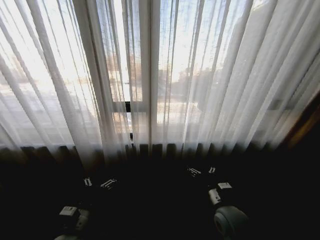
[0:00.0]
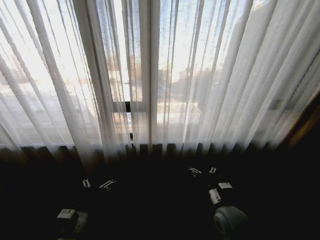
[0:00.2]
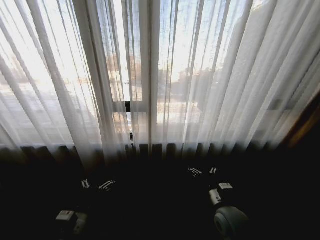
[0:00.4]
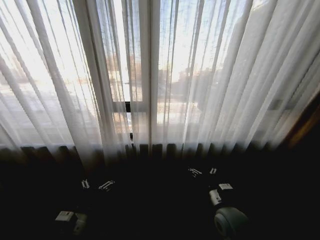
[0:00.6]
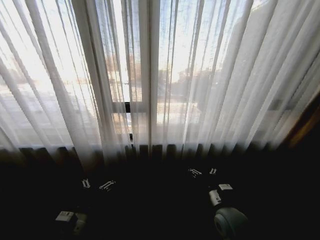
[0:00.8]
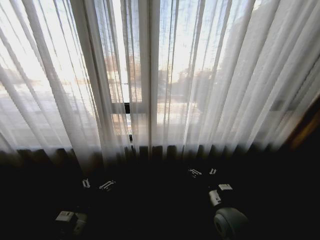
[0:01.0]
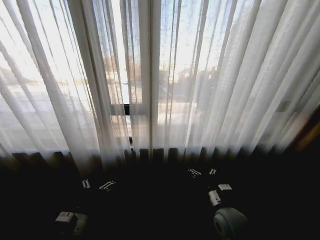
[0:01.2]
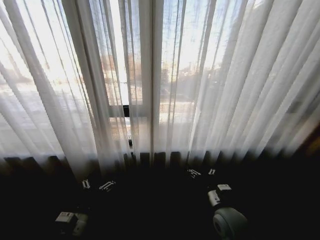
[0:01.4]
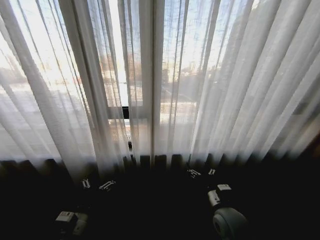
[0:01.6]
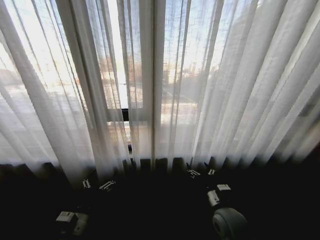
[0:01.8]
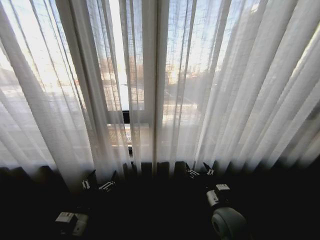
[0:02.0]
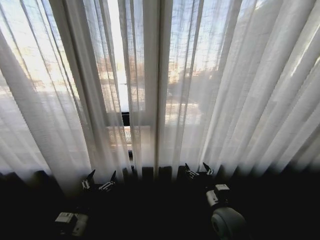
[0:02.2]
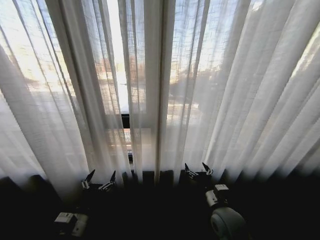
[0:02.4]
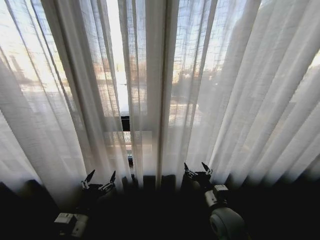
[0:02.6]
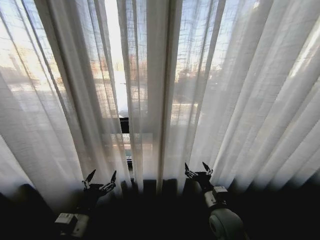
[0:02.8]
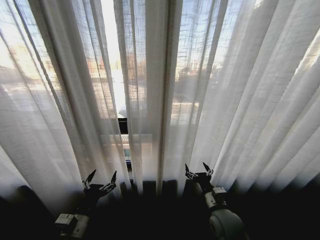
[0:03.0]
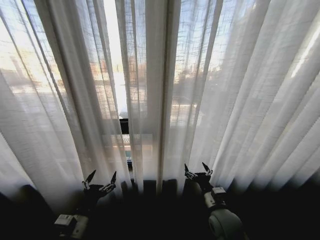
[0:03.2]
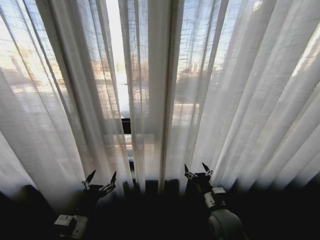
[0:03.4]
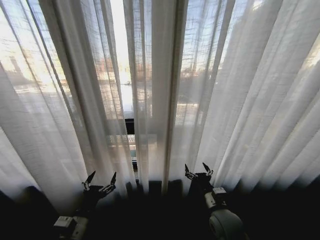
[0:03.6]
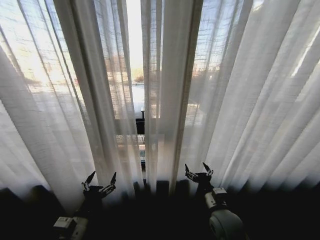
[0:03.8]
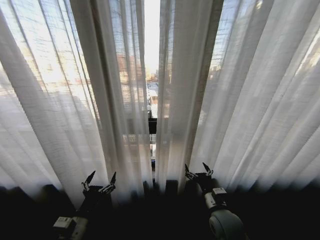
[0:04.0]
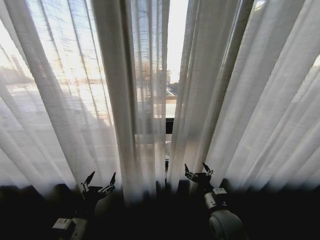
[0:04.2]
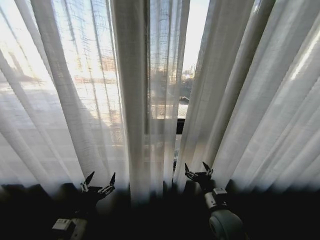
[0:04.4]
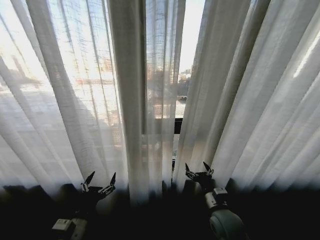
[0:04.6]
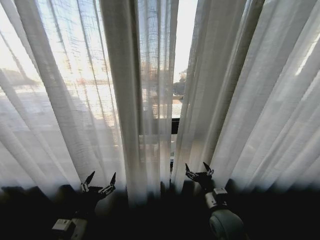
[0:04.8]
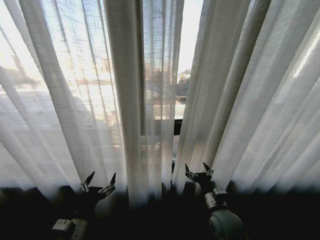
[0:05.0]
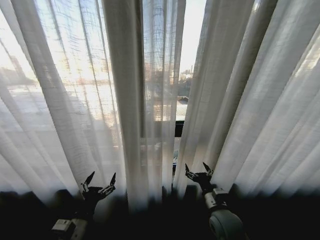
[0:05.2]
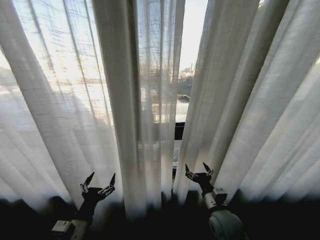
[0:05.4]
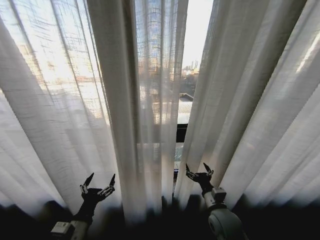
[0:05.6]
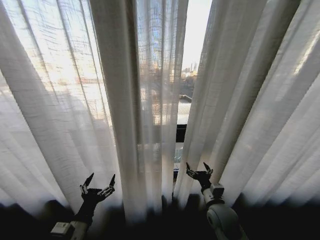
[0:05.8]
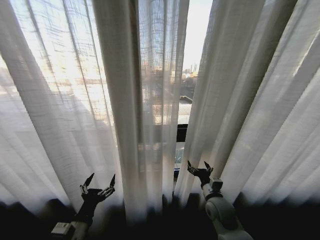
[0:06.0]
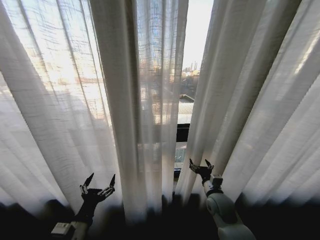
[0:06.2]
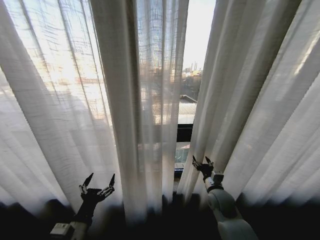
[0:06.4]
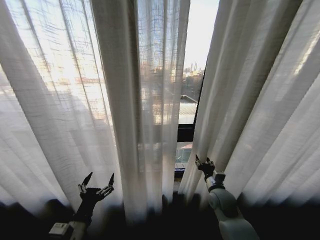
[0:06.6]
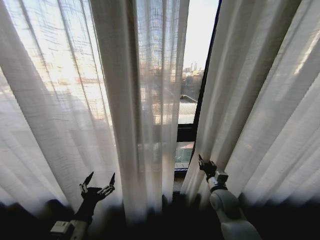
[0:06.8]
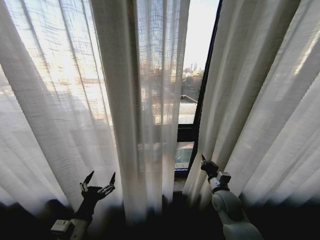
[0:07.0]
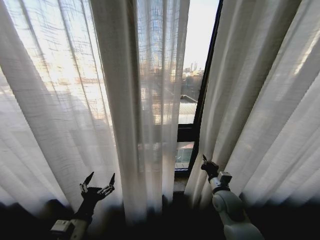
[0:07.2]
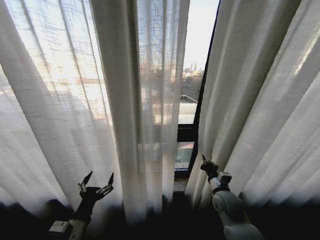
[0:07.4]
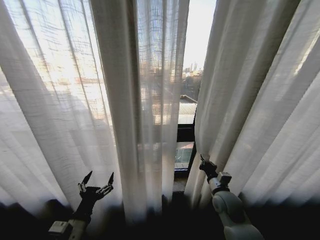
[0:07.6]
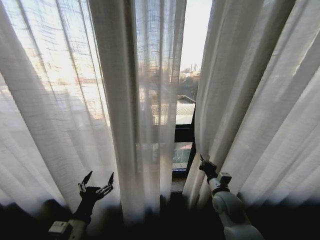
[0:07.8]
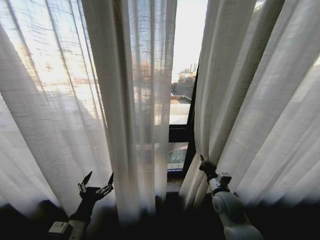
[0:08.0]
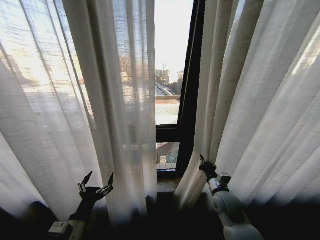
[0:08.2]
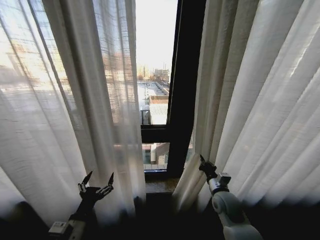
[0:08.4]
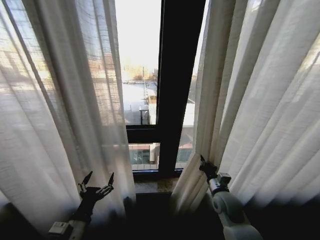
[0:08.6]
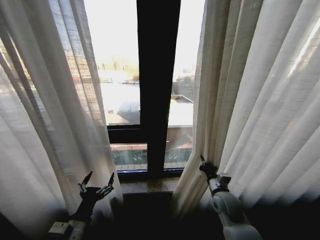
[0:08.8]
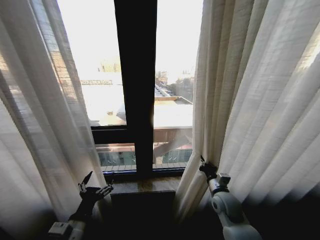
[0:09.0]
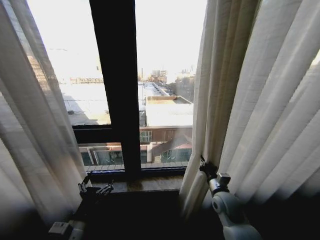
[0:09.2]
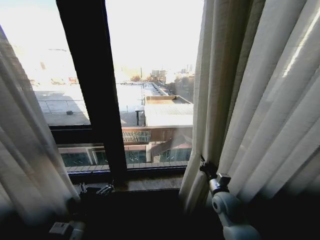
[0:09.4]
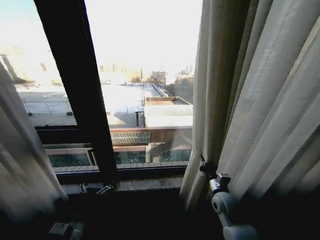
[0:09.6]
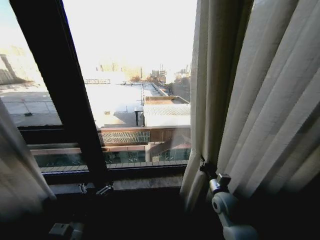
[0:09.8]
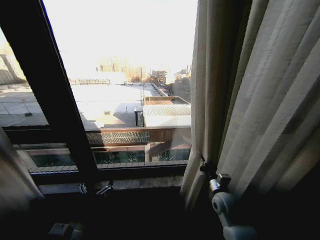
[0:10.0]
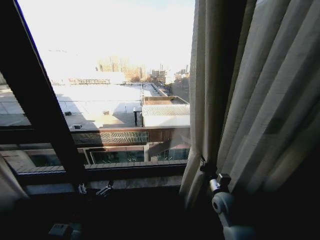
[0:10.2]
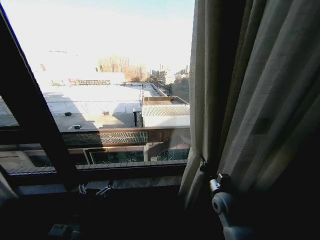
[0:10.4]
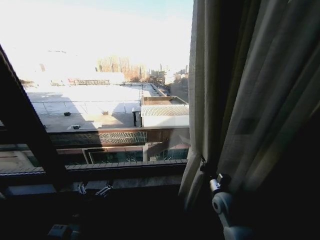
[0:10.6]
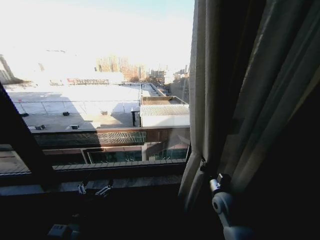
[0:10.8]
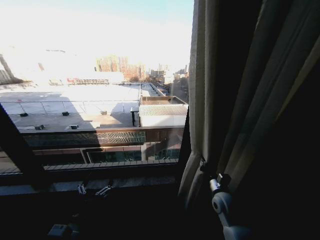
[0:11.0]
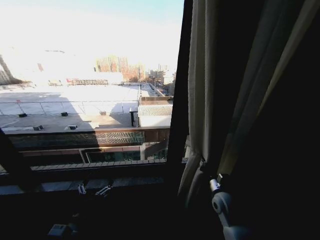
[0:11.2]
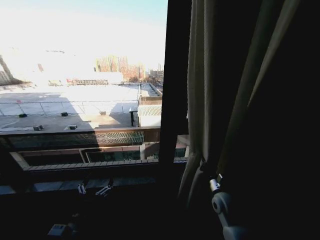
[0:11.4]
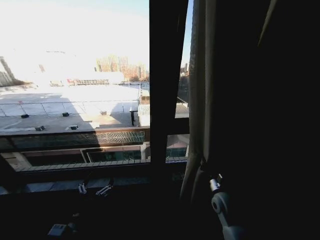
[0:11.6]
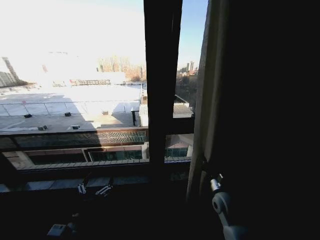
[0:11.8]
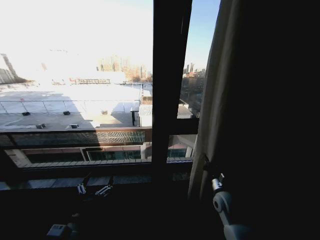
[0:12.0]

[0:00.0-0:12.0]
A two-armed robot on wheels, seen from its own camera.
Task of the whole recording: Open the curtains by pulling them apart, changing their state from closed to fully open.
0:04.4 to 0:06.0: The right gripper moves forward, some 5 cm.
0:06.0 to 0:07.6: The right gripper closes up.

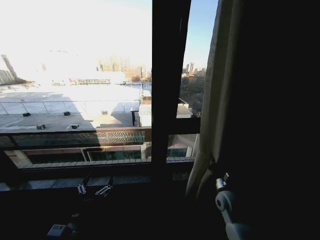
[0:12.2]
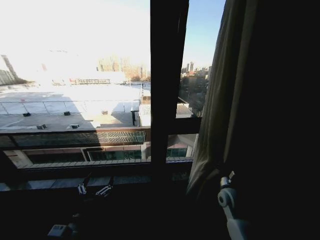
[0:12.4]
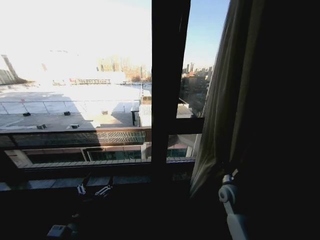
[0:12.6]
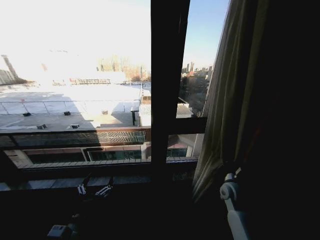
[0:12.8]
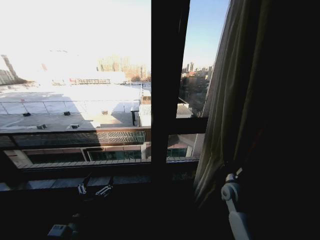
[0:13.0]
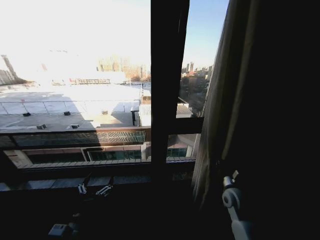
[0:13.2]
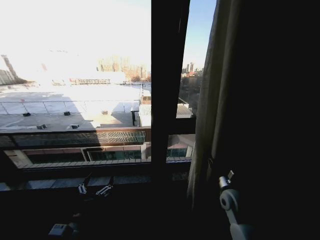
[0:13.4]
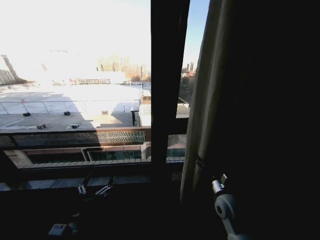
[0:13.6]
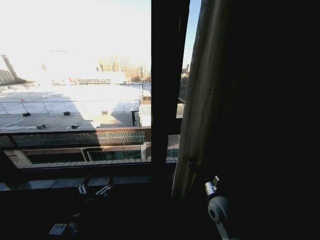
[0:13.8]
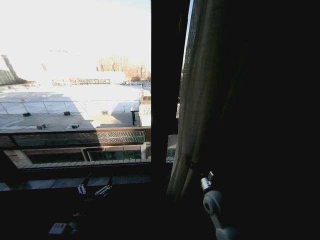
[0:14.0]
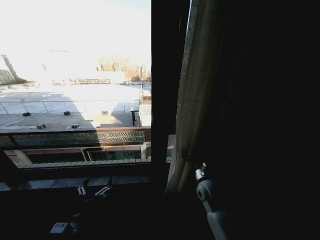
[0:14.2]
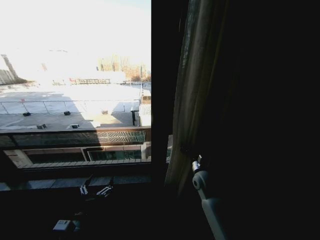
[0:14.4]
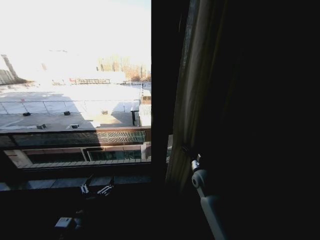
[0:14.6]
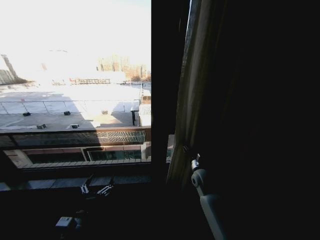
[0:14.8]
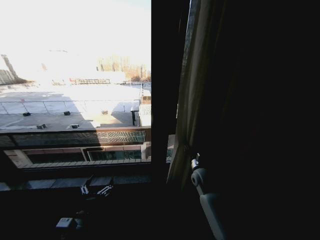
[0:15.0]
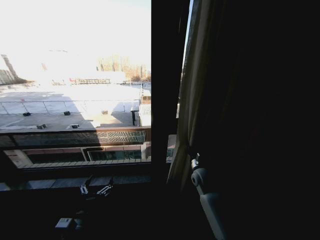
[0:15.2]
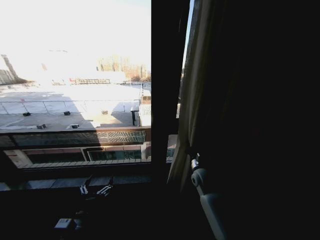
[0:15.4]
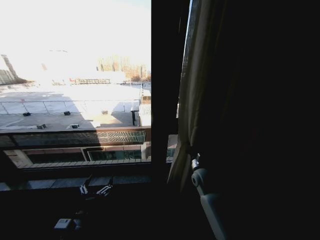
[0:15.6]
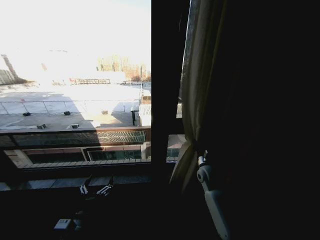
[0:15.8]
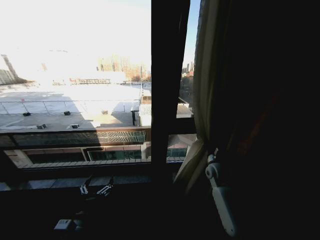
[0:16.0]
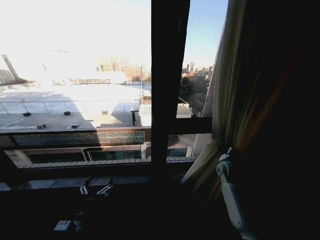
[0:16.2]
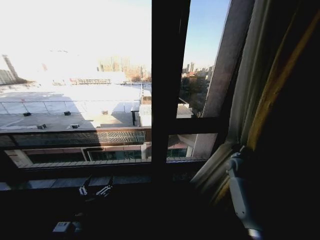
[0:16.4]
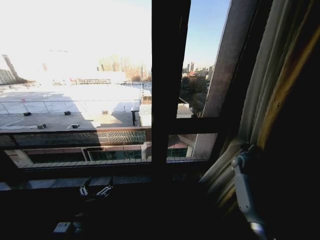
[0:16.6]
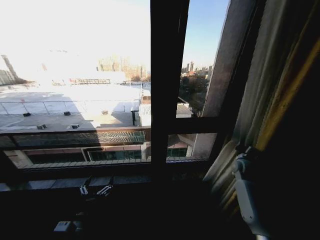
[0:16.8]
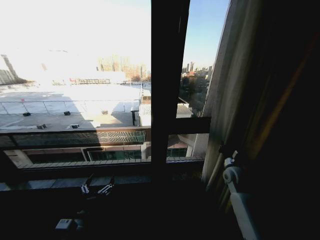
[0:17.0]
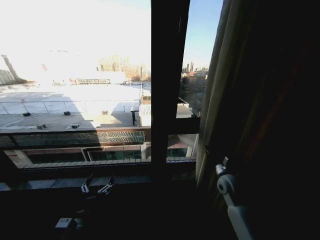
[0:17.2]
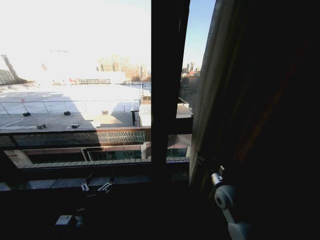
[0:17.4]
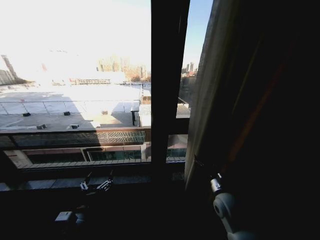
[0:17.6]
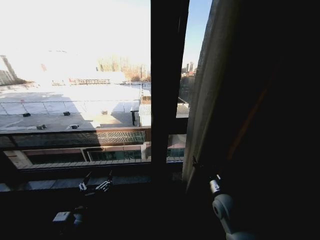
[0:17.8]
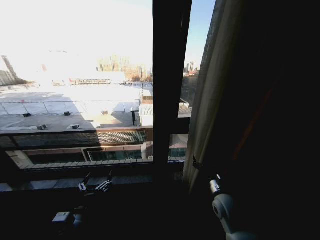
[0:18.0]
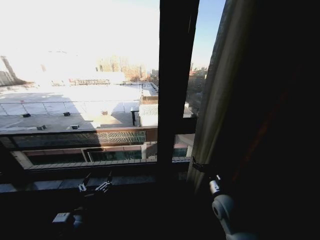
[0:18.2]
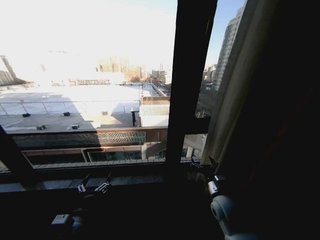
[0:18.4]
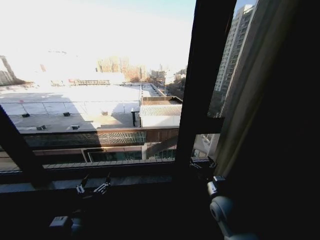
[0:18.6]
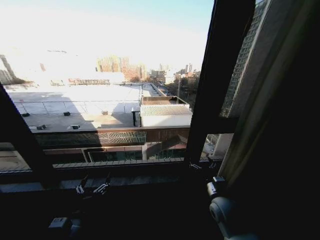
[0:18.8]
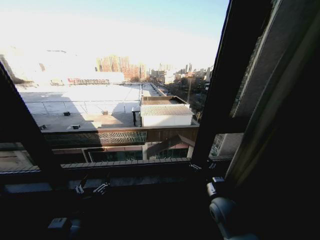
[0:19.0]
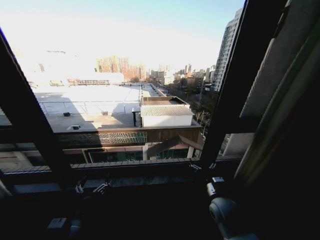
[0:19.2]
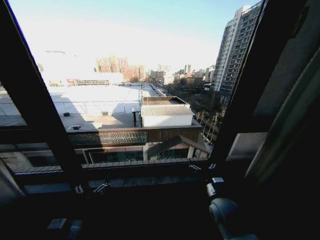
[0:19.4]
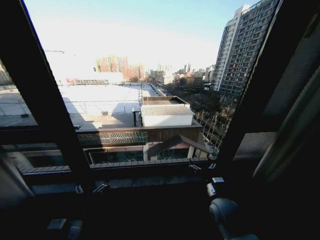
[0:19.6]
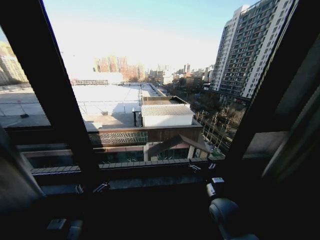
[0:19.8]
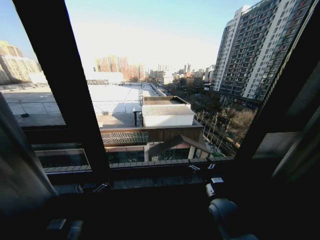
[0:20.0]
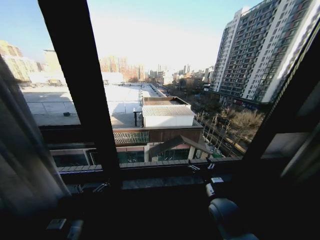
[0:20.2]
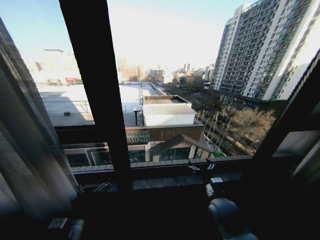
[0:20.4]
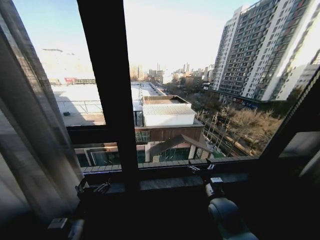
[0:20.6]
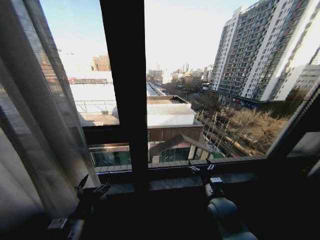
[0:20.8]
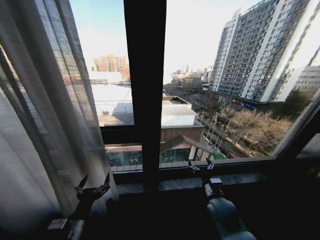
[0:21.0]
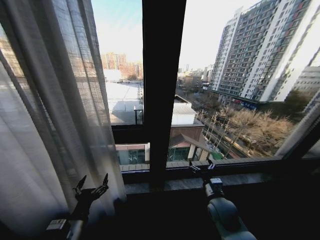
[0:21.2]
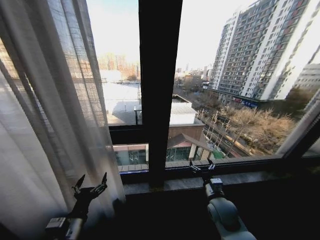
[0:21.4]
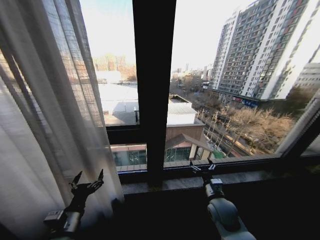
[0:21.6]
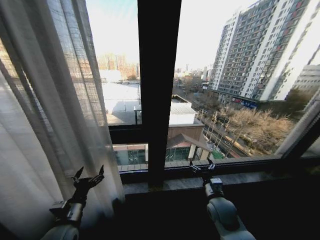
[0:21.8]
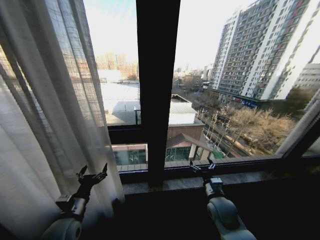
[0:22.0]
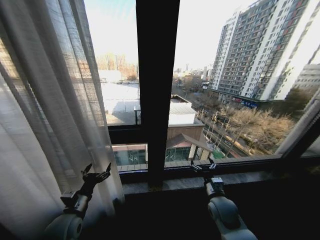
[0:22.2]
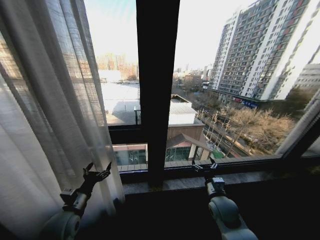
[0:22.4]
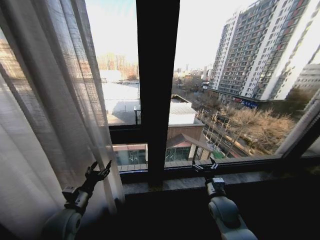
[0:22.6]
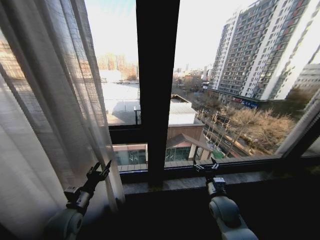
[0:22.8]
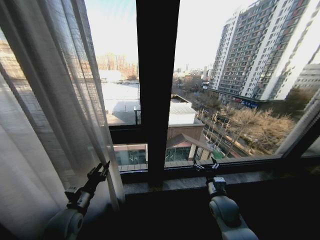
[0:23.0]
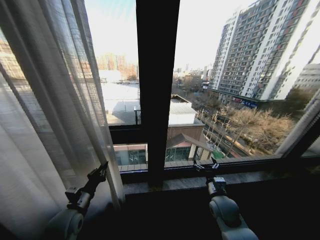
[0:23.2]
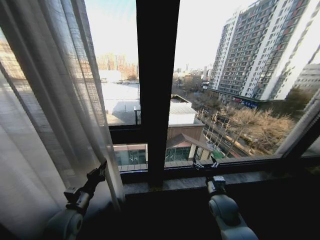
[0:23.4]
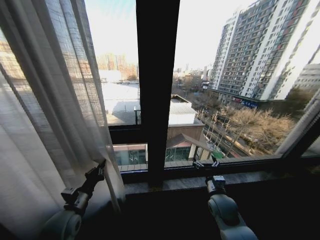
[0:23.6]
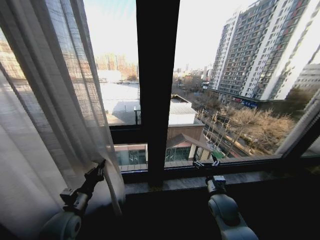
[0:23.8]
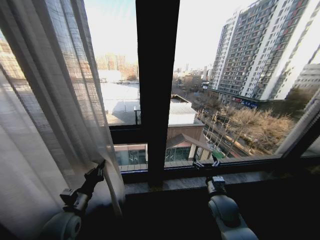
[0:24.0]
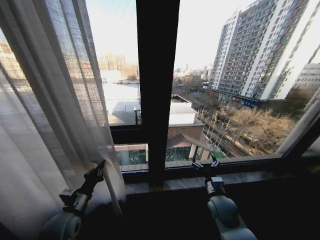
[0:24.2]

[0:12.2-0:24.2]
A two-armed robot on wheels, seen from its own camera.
Task of the whole recording: Open the curtains by pulling them apart, changing their state from closed to fully open.
0:12.2 to 0:13.8: The right gripper is displaced to the left by about 5 cm, and opens.
0:13.8 to 0:15.2: The right gripper goes some 15 cm forward, and closes up.
0:15.2 to 0:16.6: The right gripper travels to the right by approximately 25 cm.
0:16.6 to 0:18.2: The right gripper heads to the left and backward, covering approximately 25 cm, and opens.
0:21.2 to 0:22.6: The left gripper moves forward and to the left, roughly 10 cm.
0:22.6 to 0:24.2: The left gripper closes its fingers.
